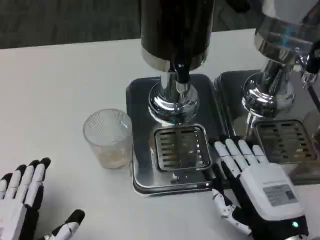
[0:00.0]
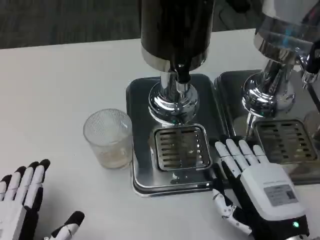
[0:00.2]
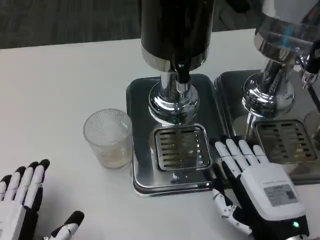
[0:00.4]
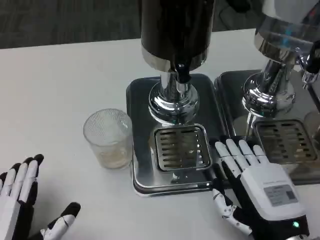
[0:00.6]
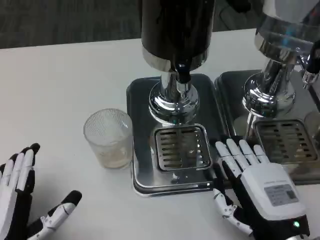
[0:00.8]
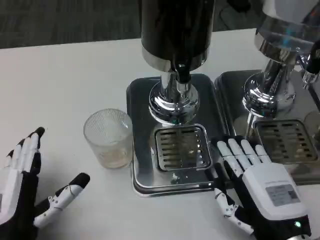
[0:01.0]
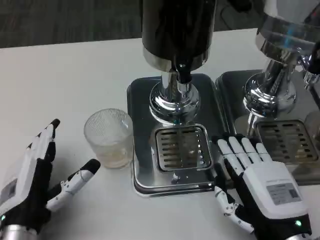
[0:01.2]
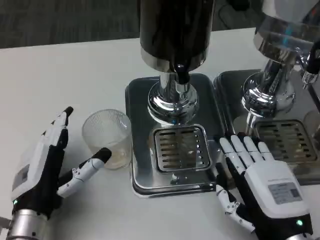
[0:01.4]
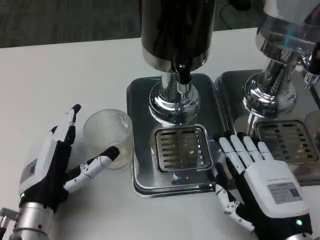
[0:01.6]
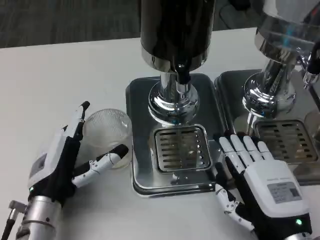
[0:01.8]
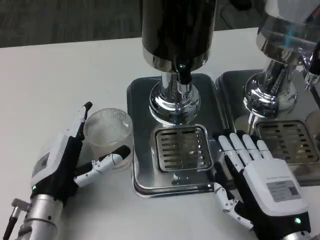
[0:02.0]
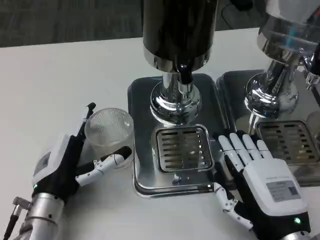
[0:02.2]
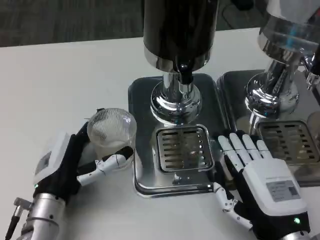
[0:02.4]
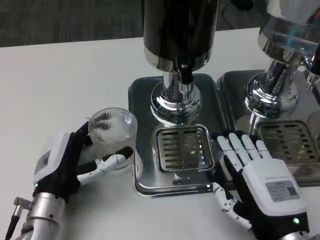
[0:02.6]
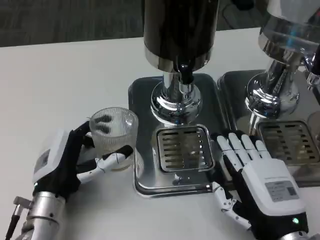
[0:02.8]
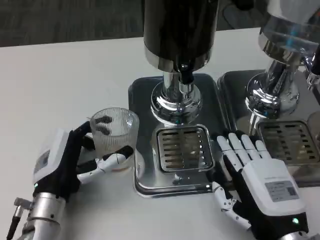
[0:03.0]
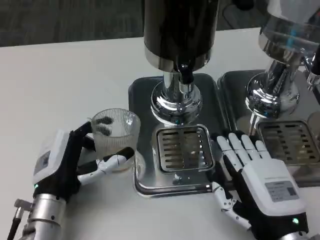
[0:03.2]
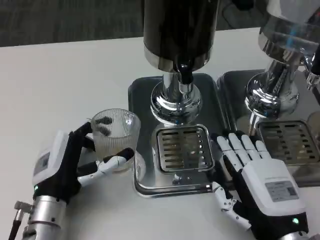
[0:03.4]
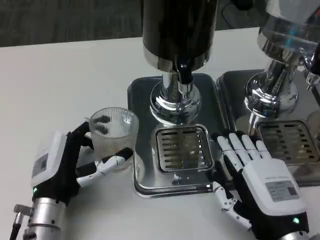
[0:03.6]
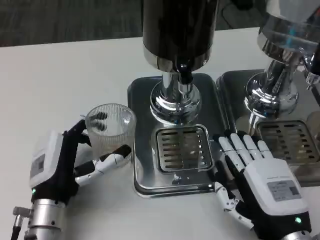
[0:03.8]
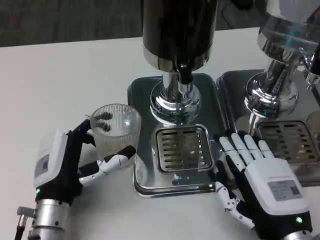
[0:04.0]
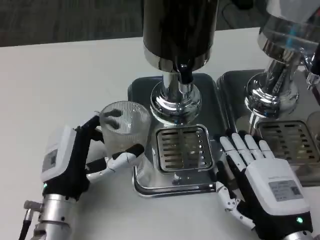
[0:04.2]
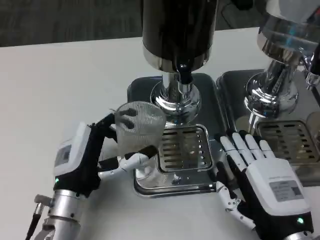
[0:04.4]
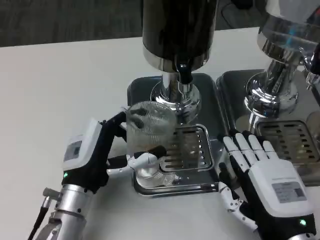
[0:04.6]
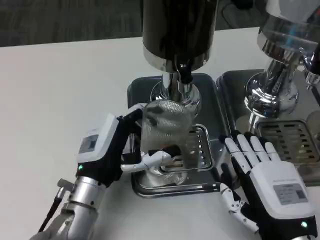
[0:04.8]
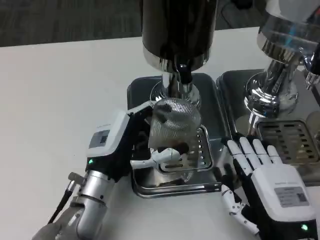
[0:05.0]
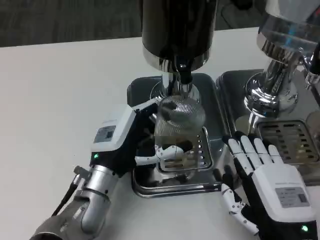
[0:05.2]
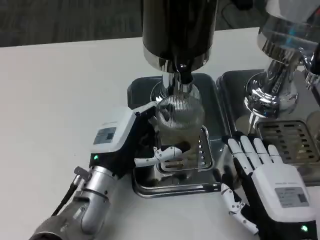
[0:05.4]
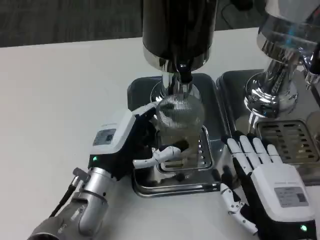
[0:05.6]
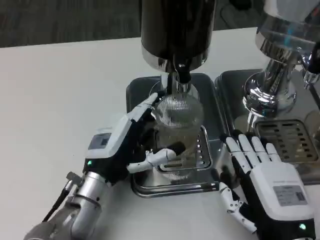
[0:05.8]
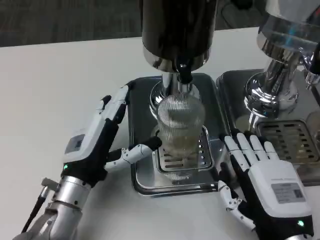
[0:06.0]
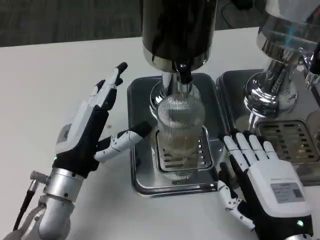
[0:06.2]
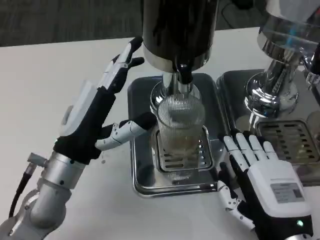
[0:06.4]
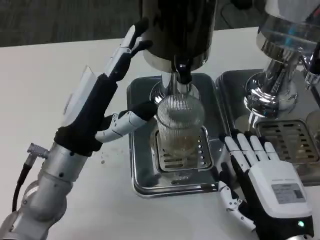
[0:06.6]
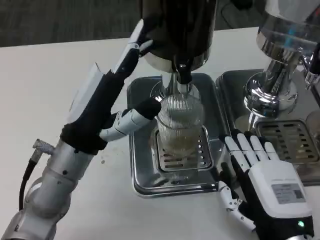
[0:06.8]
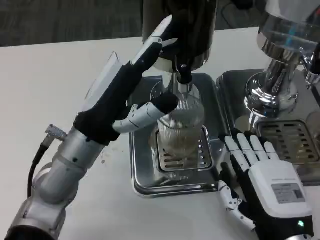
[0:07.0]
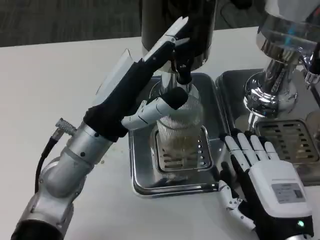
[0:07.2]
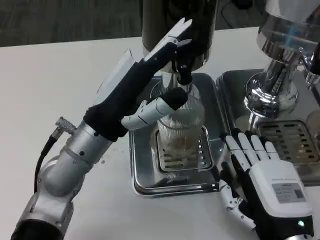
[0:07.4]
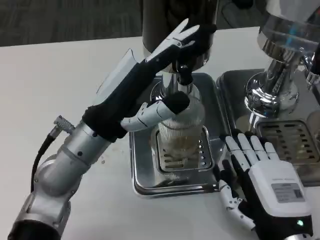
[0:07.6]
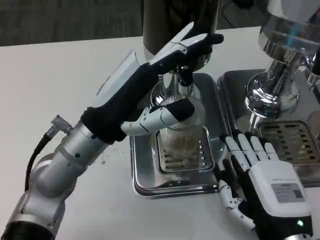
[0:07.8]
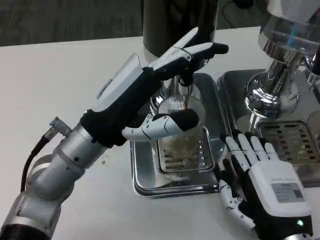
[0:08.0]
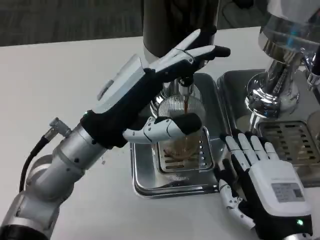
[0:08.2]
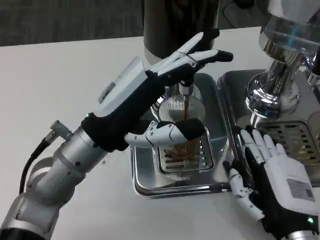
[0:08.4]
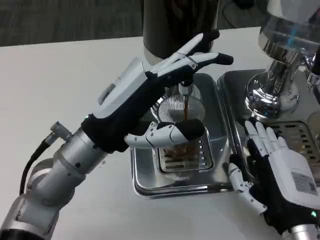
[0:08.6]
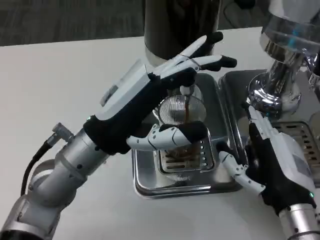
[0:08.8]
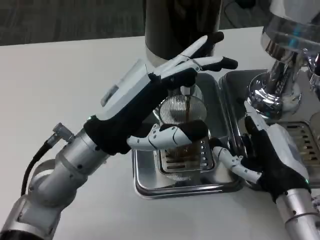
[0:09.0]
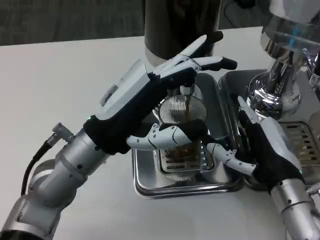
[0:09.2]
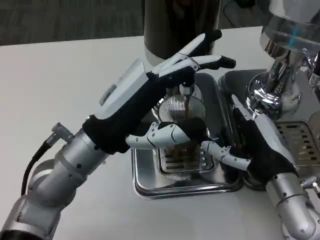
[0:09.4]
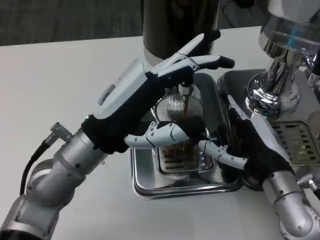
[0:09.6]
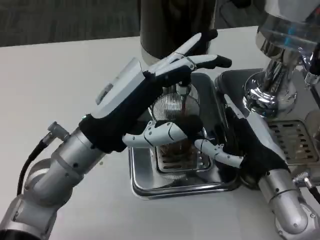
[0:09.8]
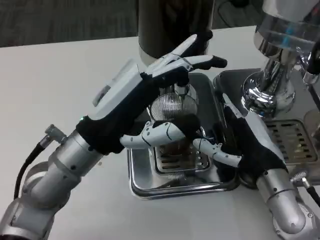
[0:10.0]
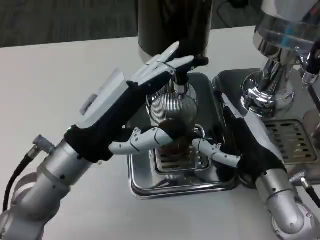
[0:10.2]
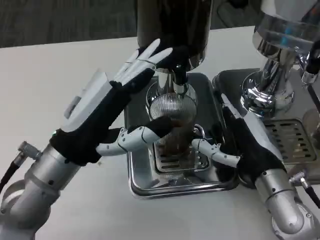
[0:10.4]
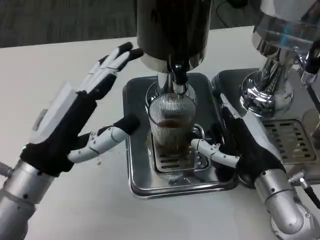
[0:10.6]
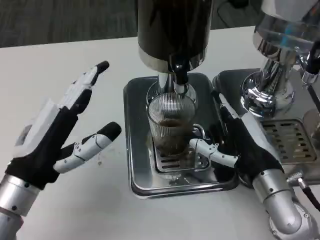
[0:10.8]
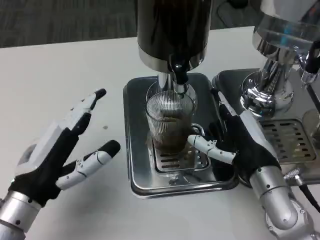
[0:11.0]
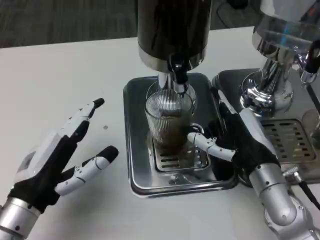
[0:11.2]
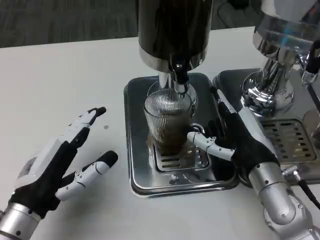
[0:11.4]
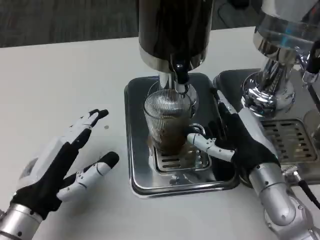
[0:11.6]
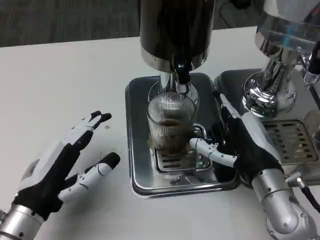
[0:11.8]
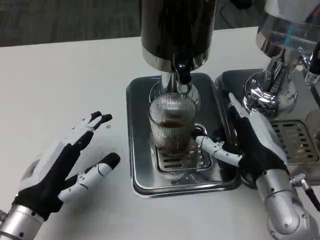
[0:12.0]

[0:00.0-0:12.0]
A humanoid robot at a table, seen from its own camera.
Task of the whole recording: Grasp the cup under the faucet to collect the drink, then remove the cup.
0:00.0 to 0:01.6: The left hand is displaced forward by approximately 10 cm.
0:04.4 to 0:06.0: The hands move only a little.
0:06.0 to 0:07.6: The left hand heads upward, covering some 10 cm.
0:07.6 to 0:09.0: The right hand goes about 5 cm forward.
0:10.4 to 0:12.0: The left hand travels downward and backward by roughly 10 cm.

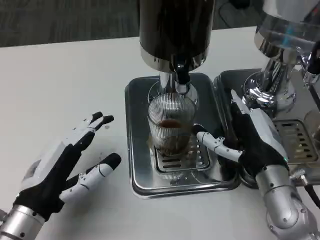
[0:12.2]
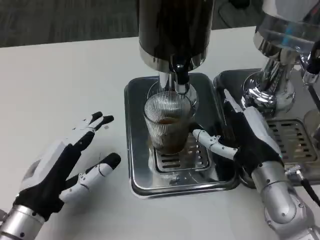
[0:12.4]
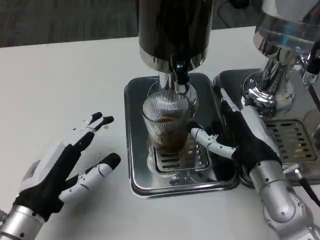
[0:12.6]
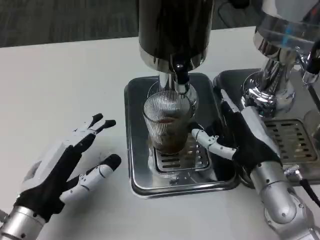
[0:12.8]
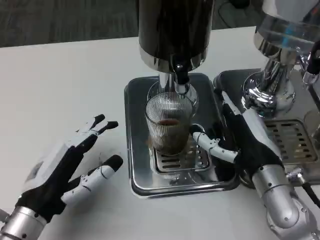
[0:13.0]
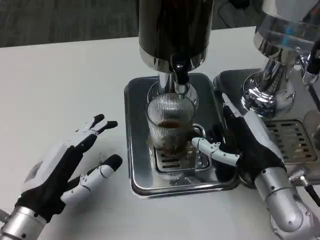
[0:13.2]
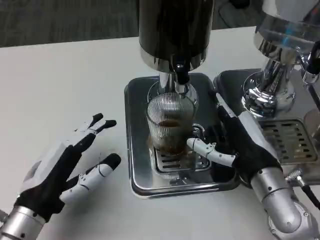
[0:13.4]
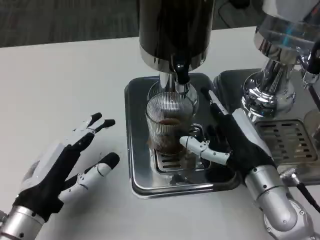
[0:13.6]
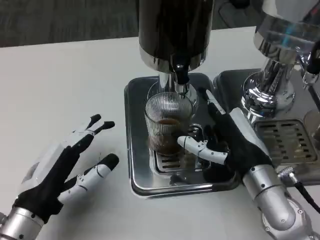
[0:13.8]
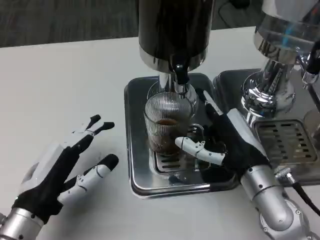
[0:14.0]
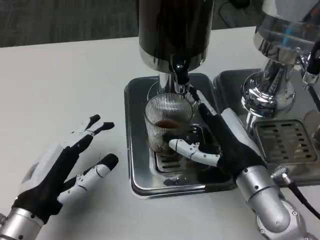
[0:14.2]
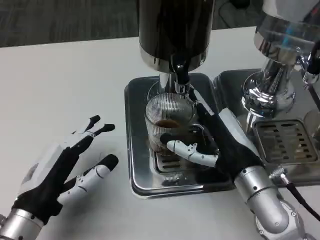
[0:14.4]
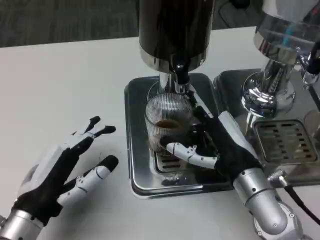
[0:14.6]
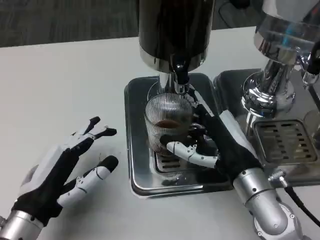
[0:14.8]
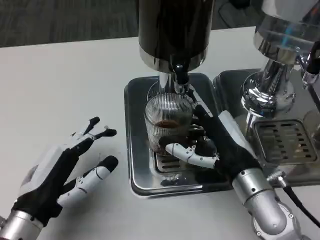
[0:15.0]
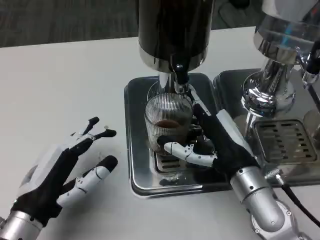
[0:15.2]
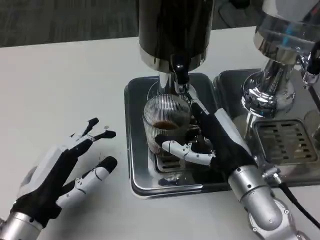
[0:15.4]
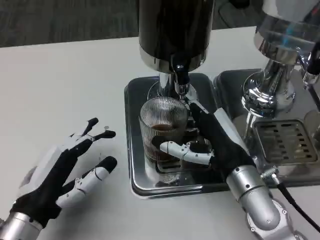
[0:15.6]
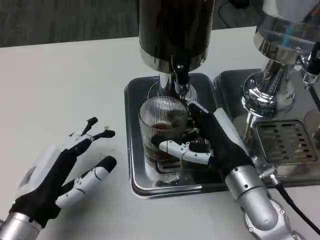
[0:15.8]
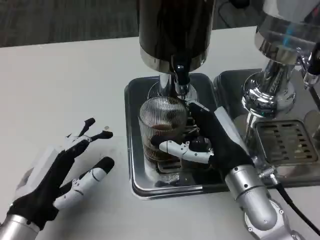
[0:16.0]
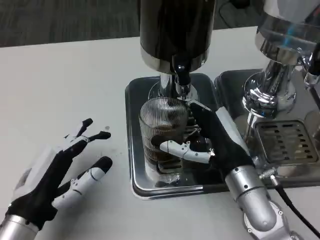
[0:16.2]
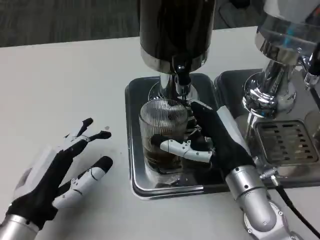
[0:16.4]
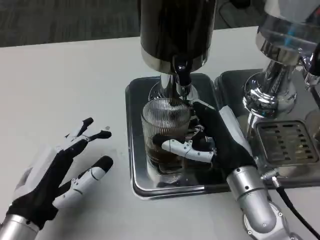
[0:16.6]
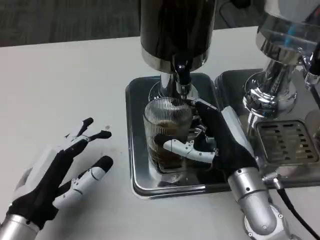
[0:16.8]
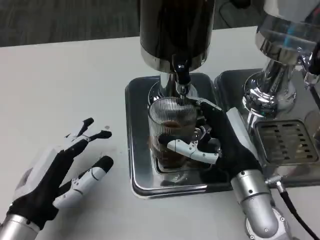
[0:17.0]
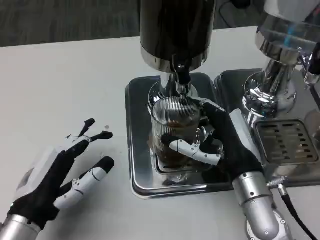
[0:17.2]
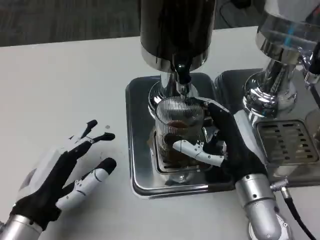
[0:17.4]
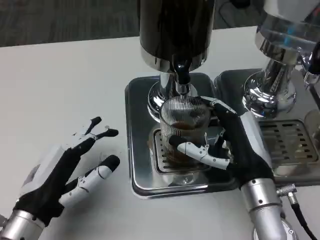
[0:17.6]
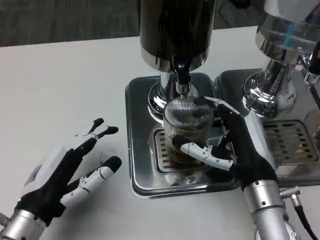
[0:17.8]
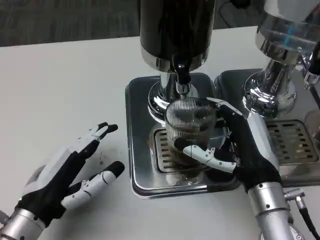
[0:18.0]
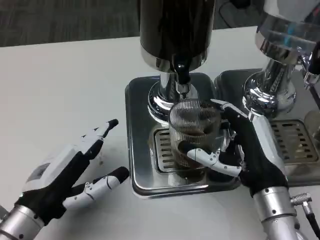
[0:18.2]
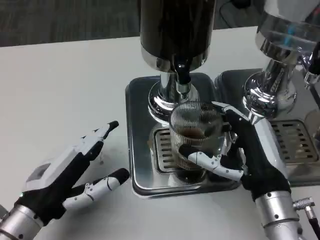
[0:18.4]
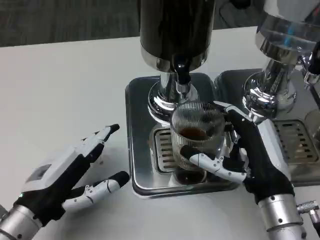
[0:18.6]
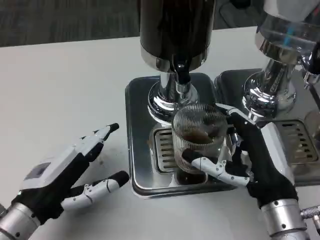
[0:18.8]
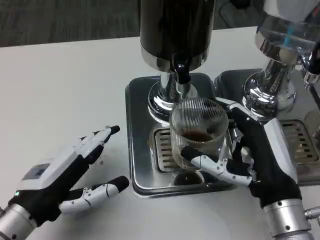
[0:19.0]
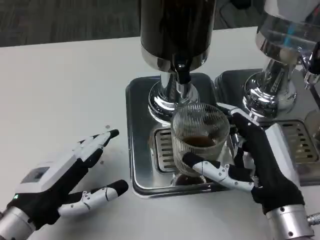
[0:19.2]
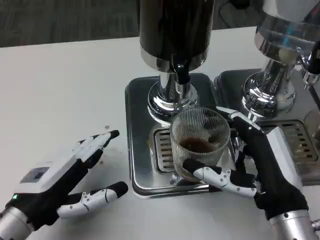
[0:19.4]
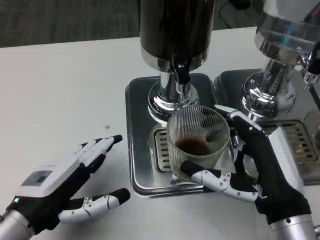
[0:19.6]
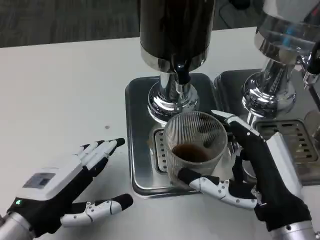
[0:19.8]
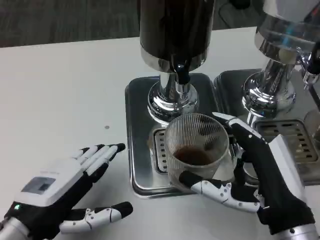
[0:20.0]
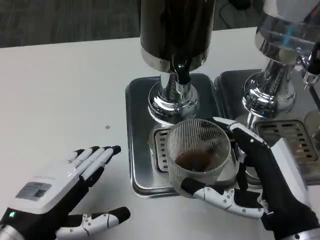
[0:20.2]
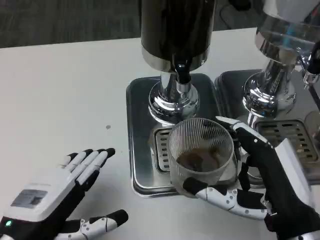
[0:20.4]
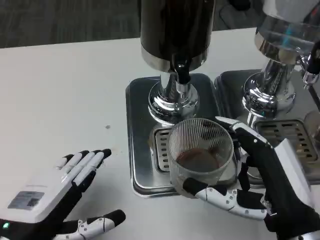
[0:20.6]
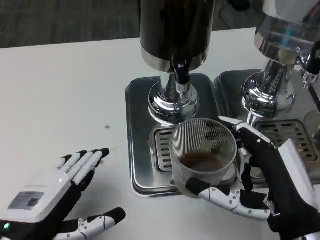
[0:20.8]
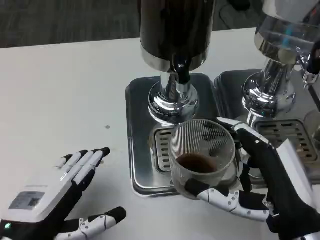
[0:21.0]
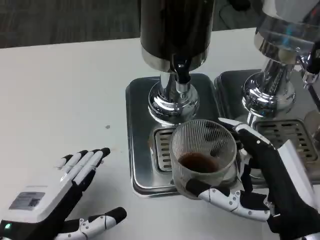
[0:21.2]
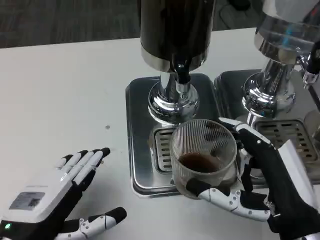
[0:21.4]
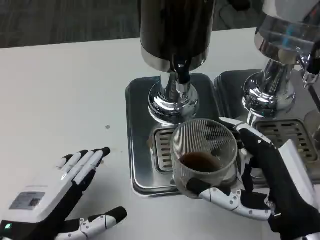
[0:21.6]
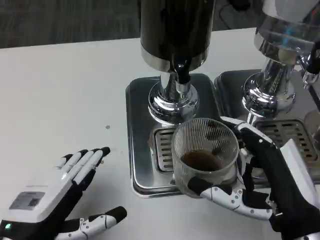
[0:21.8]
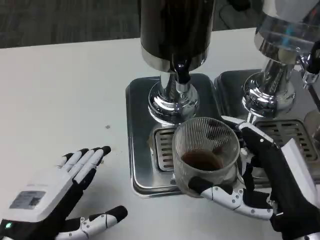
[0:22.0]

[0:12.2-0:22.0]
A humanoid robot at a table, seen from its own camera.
Task of the whole recording: Grasp the cup under the faucet to collect the drink, then remove the cup.
0:12.2 to 0:16.4: The hands move only a little.
0:17.8 to 0:19.2: The right hand ends up about 5 cm from where it was.
0:20.6 to 0:22.0: Neither hand changes place.

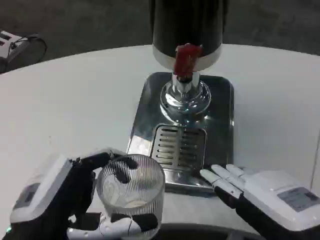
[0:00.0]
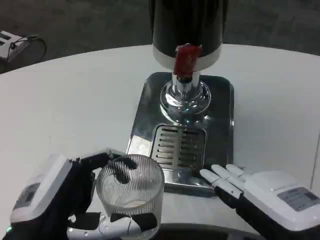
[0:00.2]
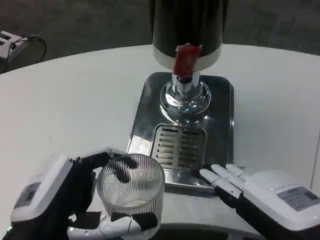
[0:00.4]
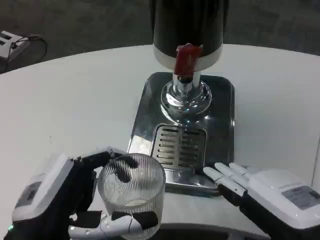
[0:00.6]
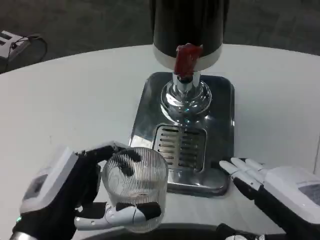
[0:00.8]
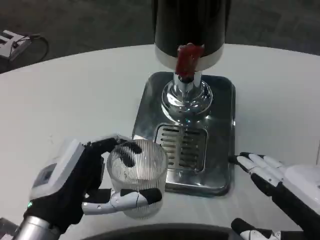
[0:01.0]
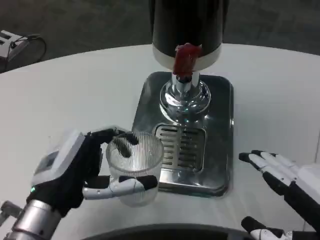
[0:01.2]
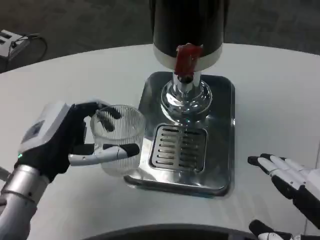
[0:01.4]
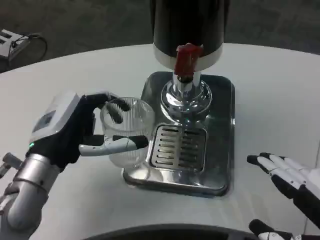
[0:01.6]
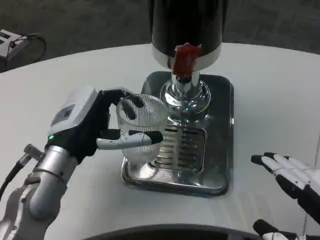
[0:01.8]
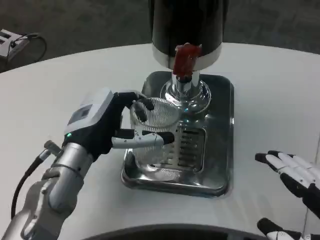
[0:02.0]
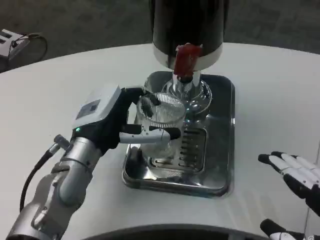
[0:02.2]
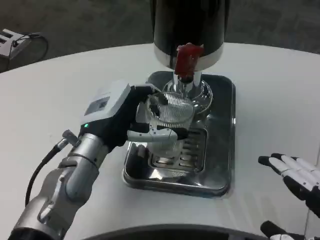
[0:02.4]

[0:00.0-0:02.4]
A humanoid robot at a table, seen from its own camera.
Task of the whole recording: Grasp the cup under the faucet to collect the drink, then remove the cup.
0:00.0 to 0:01.2: The left hand is displaced forward by some 5 cm.
0:01.2 to 0:02.4: The left hand moves forward and to the right, roughly 10 cm.
